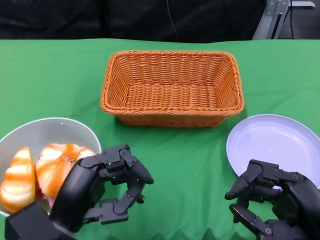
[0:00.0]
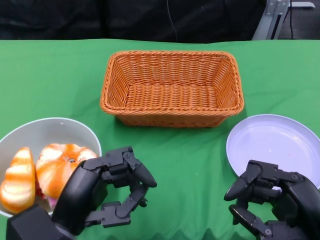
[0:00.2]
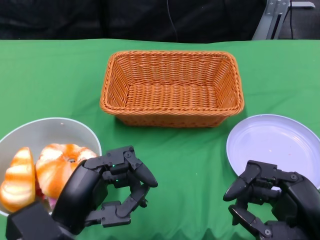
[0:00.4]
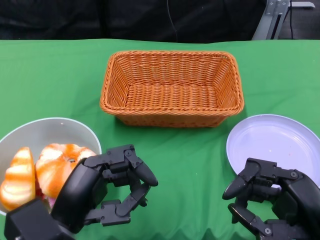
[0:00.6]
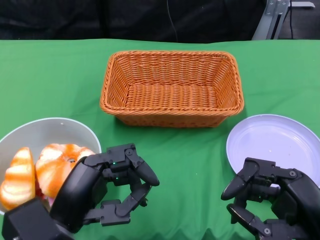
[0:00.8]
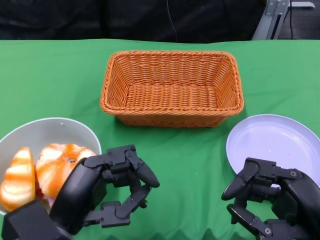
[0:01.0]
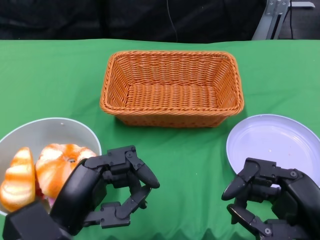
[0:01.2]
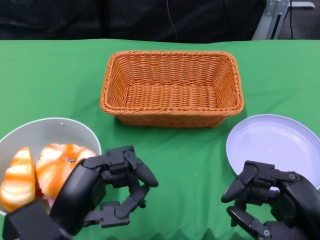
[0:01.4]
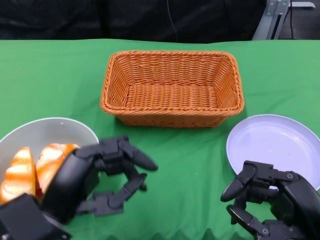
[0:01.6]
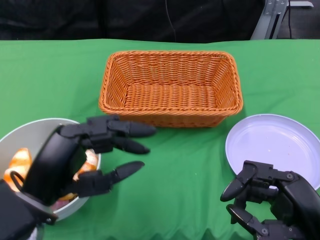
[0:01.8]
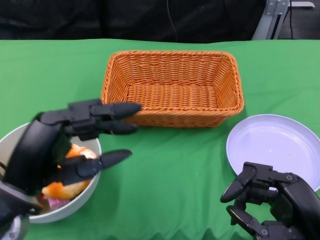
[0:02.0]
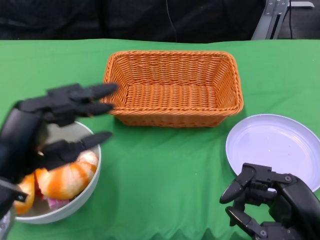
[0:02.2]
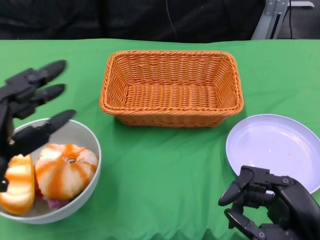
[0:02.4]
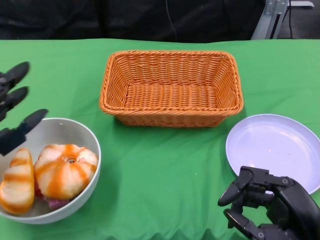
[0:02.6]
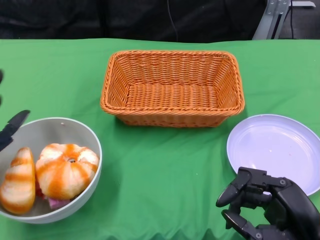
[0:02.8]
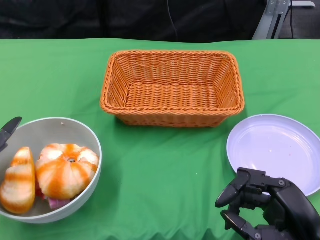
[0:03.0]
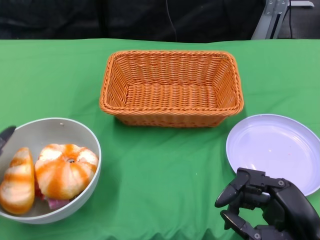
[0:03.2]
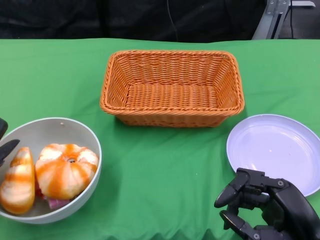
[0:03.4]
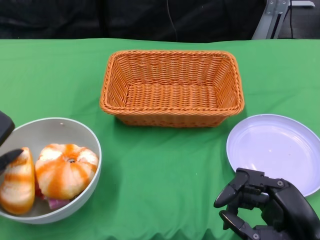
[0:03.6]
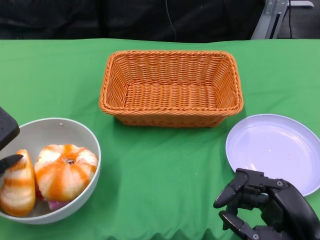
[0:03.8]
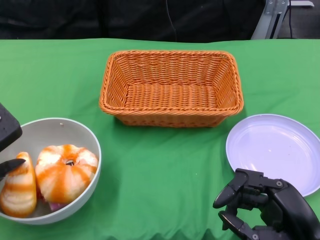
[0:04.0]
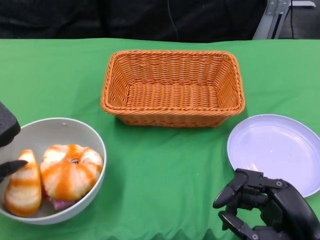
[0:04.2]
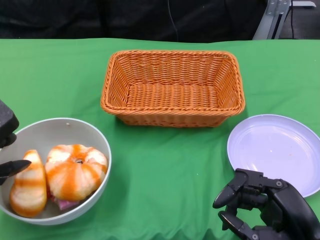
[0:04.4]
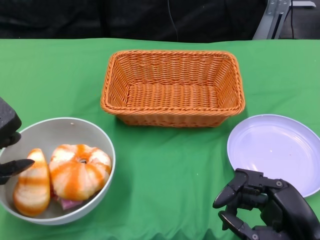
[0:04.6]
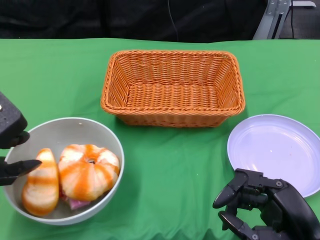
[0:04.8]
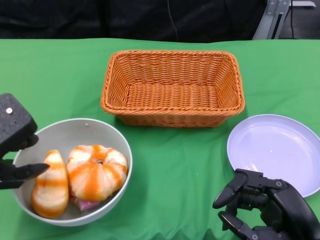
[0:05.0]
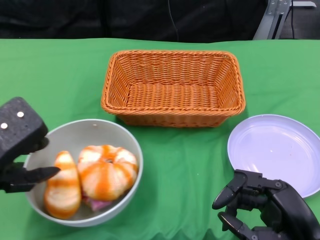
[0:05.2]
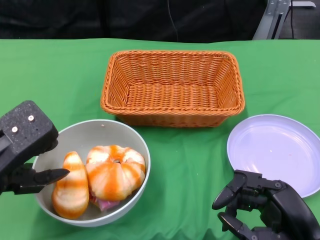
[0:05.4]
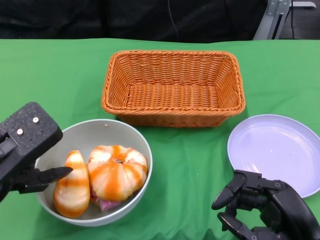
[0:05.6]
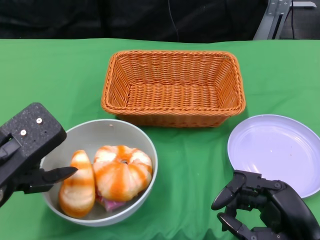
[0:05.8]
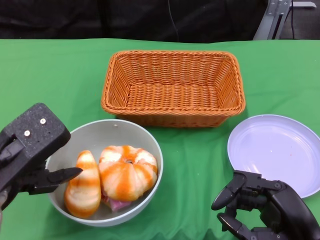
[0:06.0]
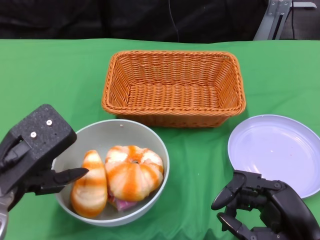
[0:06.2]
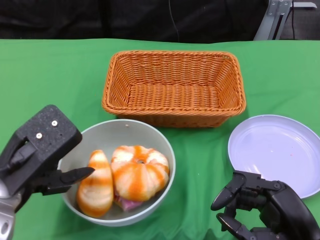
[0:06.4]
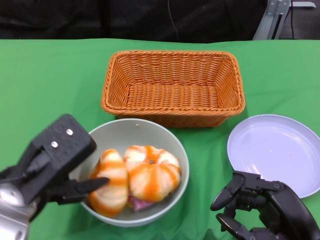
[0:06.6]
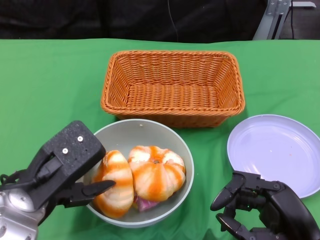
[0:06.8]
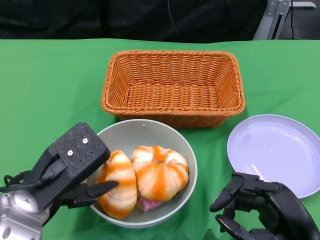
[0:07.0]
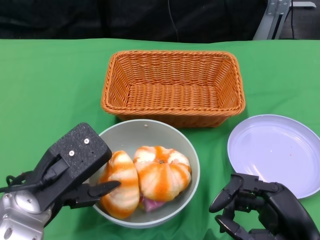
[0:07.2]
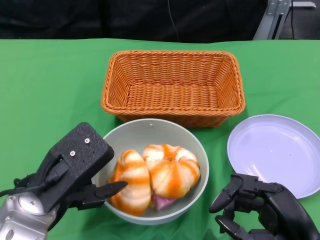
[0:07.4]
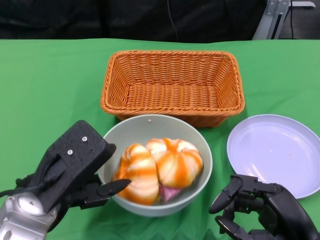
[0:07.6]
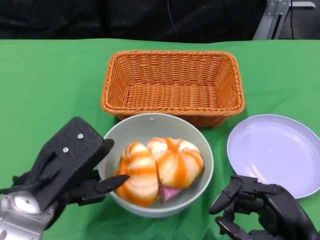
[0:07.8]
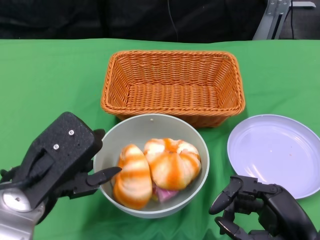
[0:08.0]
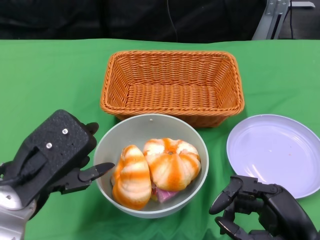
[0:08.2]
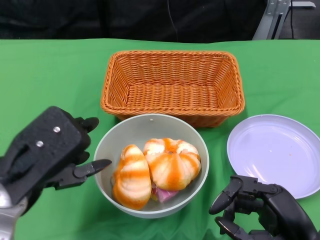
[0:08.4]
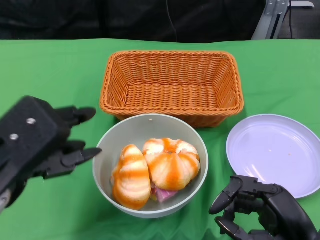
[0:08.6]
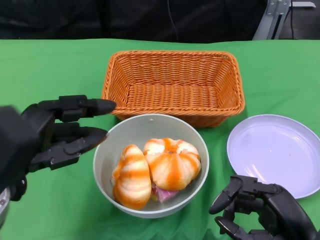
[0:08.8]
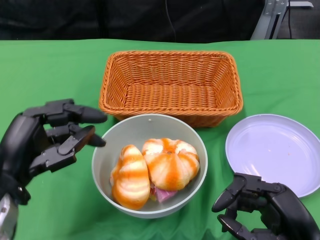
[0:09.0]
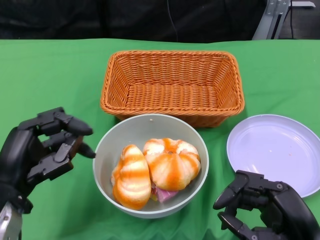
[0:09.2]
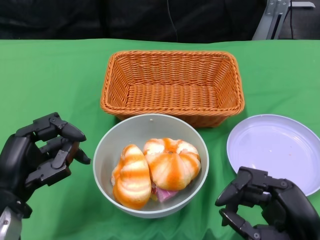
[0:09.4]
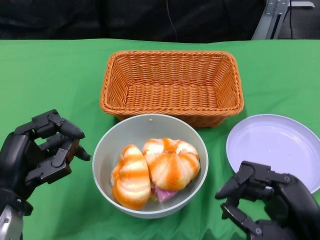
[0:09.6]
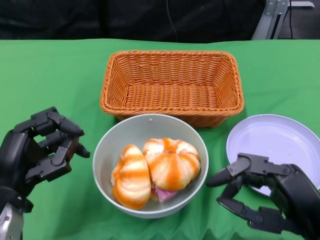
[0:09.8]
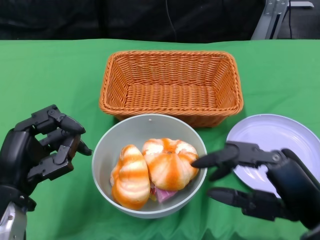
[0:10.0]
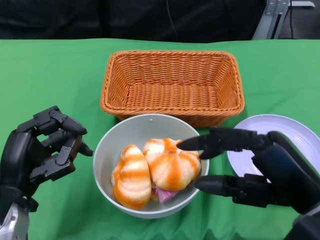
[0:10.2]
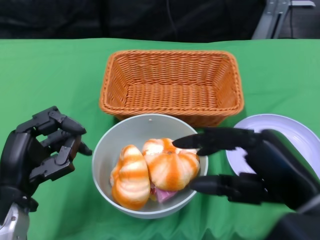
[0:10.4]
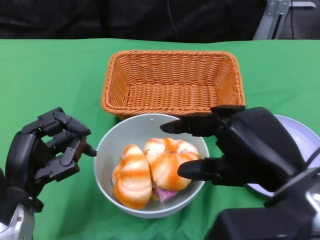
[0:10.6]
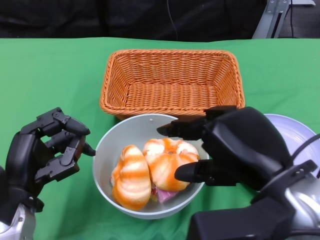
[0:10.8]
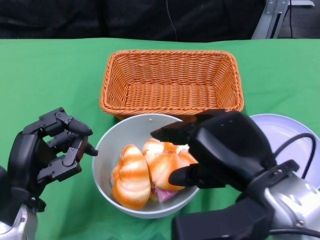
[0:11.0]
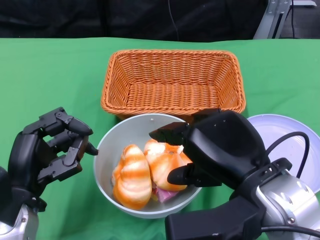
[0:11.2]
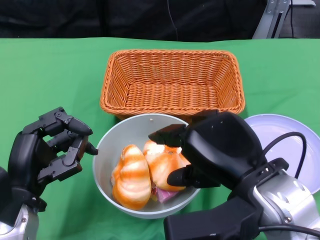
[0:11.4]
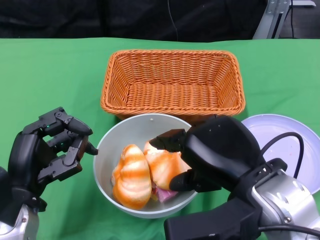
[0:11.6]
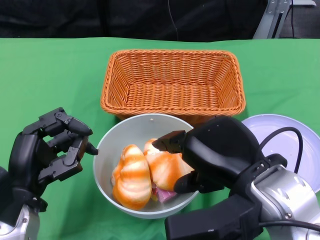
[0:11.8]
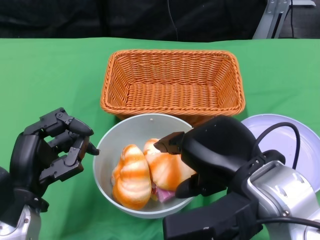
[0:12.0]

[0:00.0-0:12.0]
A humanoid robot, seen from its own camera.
Step, 0:00.0 to 0:09.2: Push the bowl to the center of the table using the left gripper.
0:01.6 to 0:03.0: The left hand shifts approximately 10 cm to the left.
0:04.4 to 0:06.0: The left hand shifts about 5 cm to the right.
0:06.0 to 0:07.6: The left hand shifts roughly 5 cm to the right.
0:07.6 to 0:09.0: The left hand travels to the left by roughly 5 cm.
0:09.0 to 0:10.4: The right hand goes about 10 cm upward; the left hand goes about 5 cm downward.
0:10.4 to 0:12.0: The right hand moves to the left, approximately 5 cm.

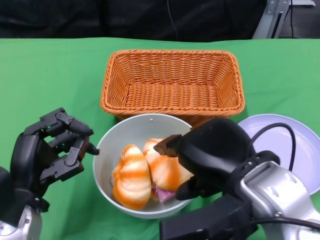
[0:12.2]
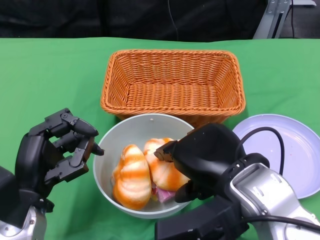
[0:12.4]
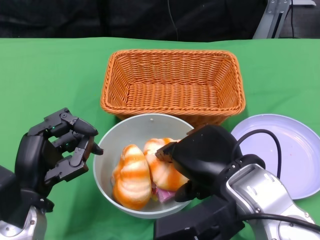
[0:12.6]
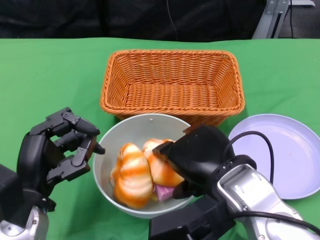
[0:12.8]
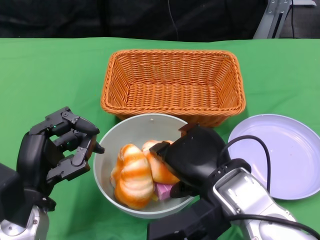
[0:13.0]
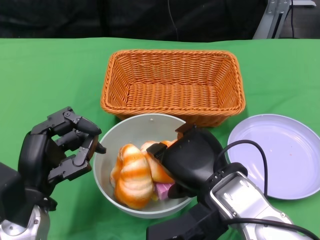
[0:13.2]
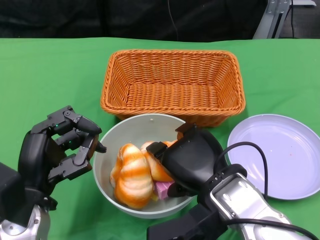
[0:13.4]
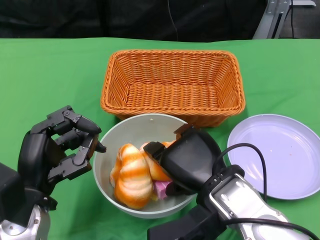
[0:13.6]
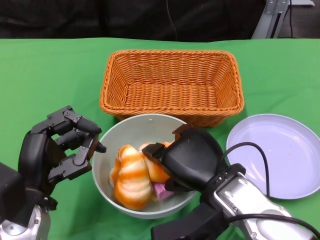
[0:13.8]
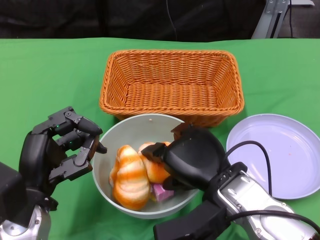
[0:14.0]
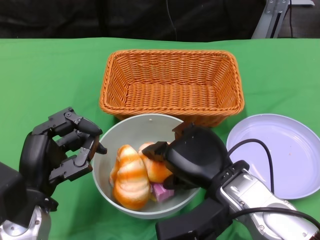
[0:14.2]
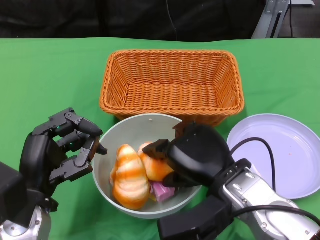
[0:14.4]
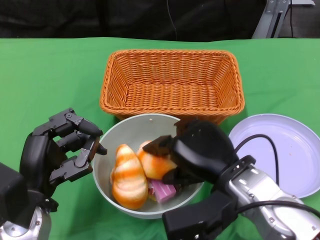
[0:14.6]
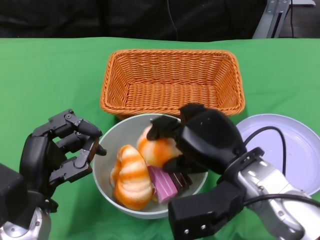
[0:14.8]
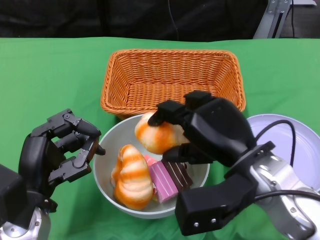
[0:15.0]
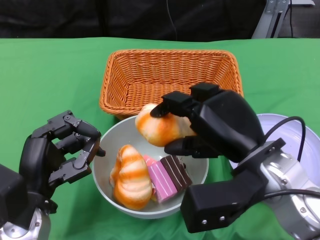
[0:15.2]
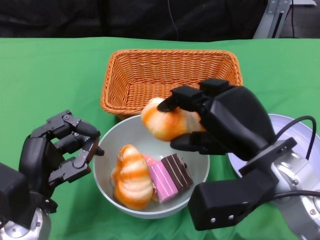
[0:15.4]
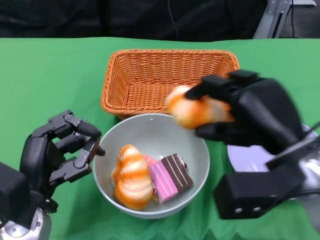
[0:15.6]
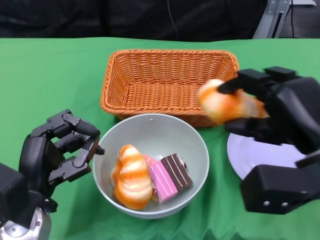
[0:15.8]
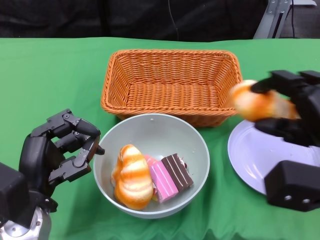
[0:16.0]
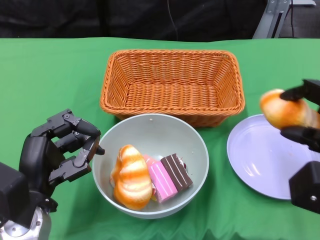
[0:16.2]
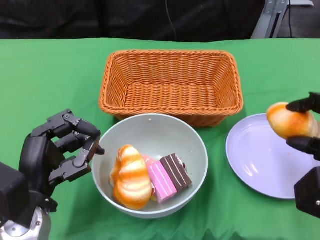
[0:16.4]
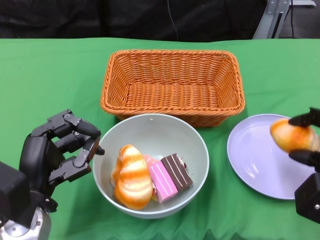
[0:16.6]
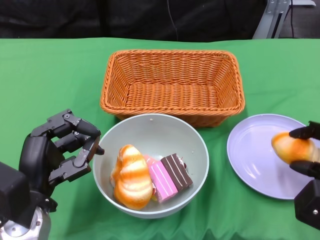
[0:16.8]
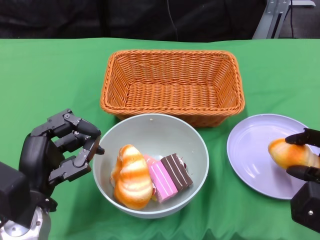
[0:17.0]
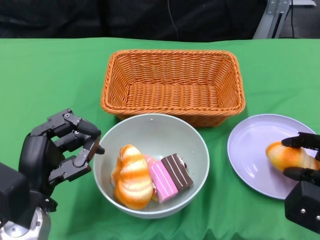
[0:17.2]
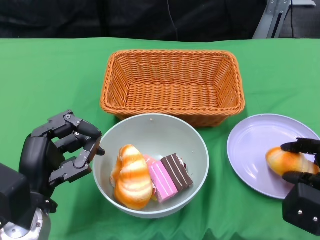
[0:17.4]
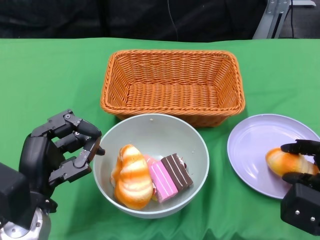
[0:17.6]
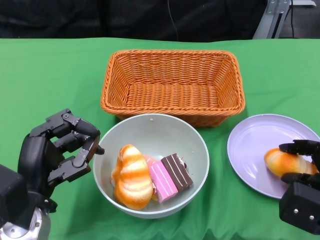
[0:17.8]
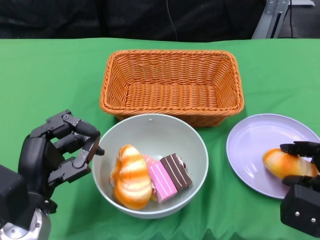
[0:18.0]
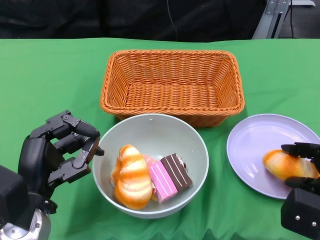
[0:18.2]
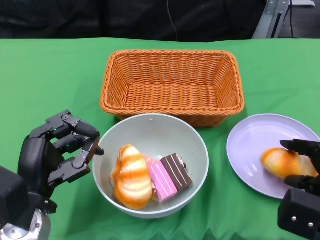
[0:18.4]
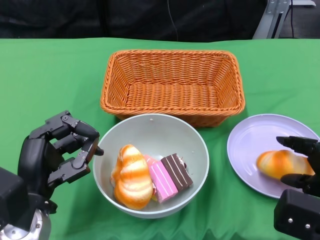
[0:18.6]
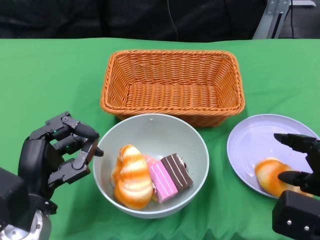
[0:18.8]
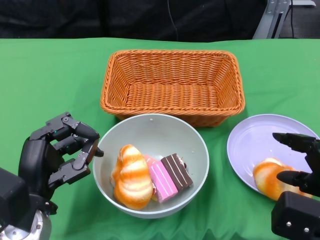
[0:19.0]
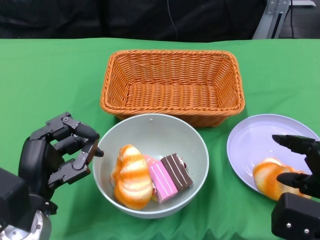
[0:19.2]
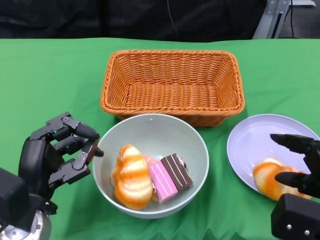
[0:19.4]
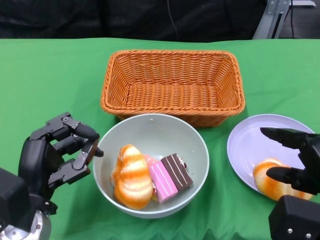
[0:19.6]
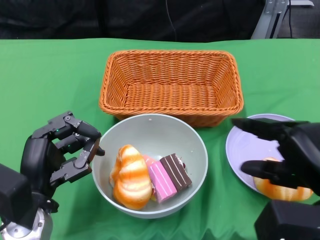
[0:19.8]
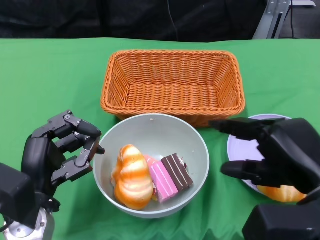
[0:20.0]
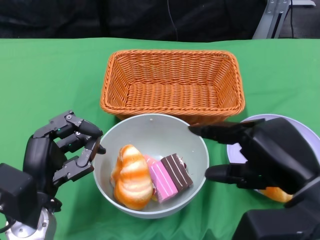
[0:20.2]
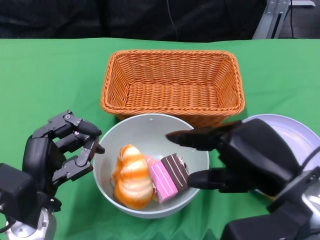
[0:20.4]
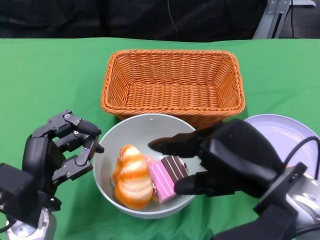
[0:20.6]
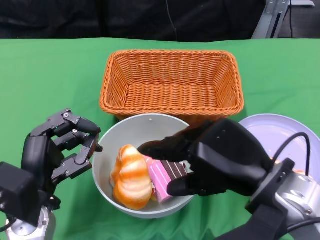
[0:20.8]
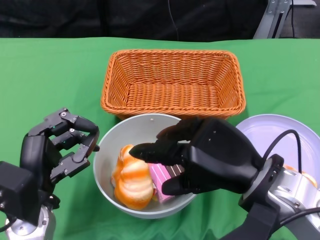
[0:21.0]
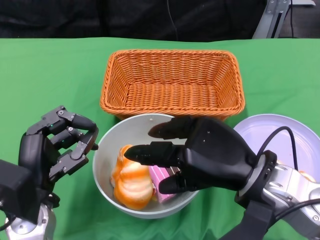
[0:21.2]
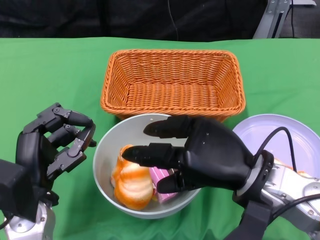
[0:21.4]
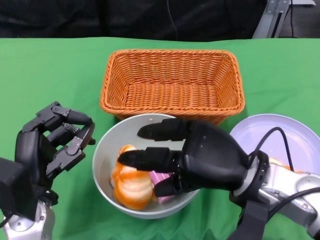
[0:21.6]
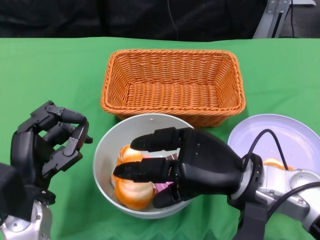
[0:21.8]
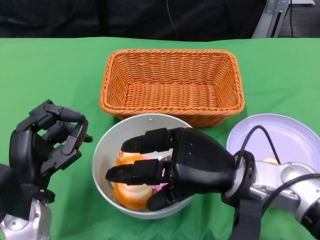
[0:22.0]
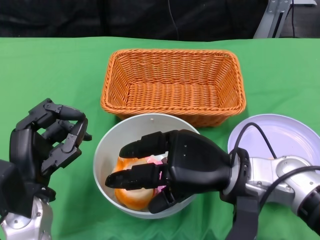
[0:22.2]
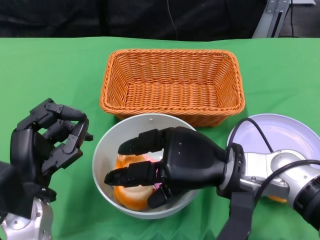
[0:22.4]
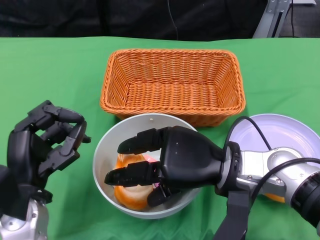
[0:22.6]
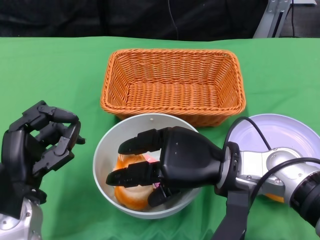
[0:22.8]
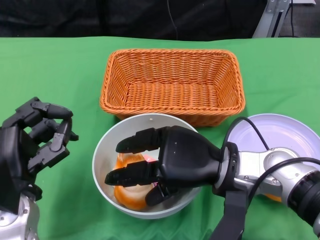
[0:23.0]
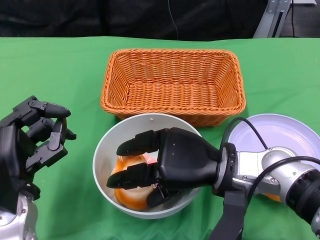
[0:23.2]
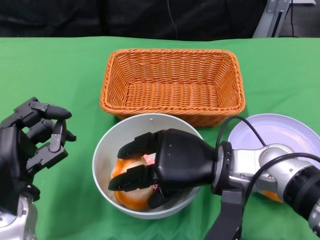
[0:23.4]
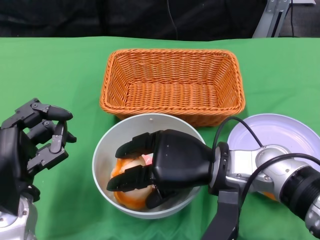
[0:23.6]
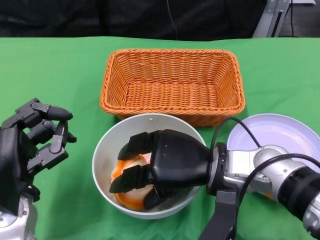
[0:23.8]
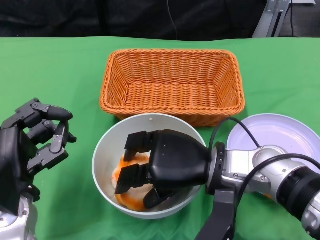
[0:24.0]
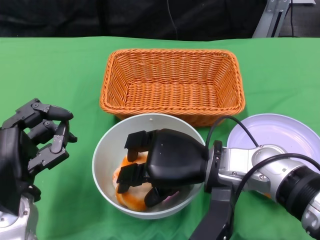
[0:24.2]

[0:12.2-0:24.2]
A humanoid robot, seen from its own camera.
0:12.2 to 0:13.8: The right hand heads downward, covering approximately 10 cm.
0:13.8 to 0:15.2: The right hand changes place by roughly 5 cm.
0:15.2 to 0:16.6: The right hand moves to the right, roughly 15 cm.
0:16.6 to 0:18.2: The hands stay close to where they were, moving slightly.
0:18.2 to 0:19.8: The right hand is displaced upward by roughly 5 cm.
0:19.8 to 0:21.2: The right hand heads to the left, covering roughly 10 cm.
0:21.2 to 0:22.6: The right hand ends up some 5 cm from where it was.
